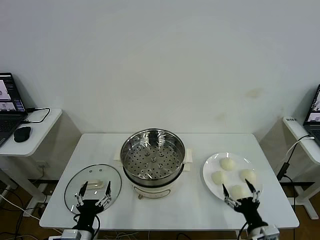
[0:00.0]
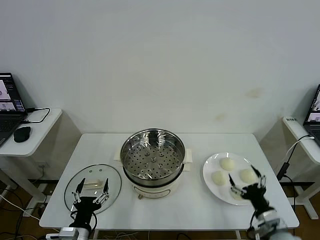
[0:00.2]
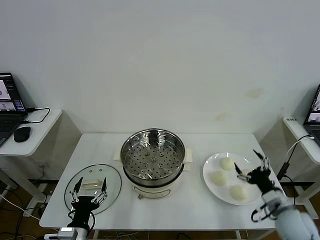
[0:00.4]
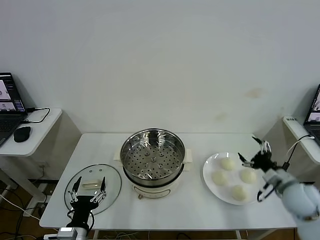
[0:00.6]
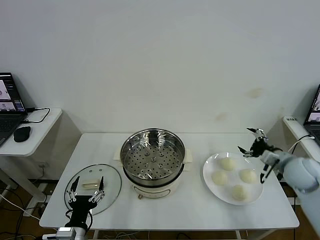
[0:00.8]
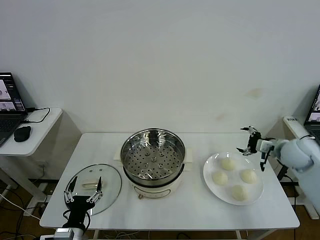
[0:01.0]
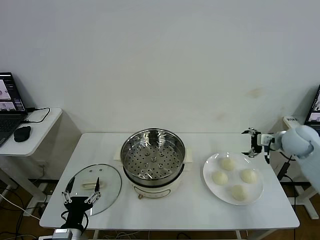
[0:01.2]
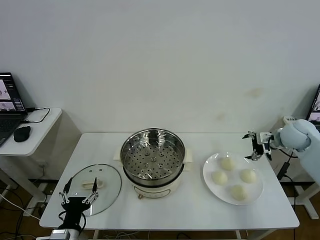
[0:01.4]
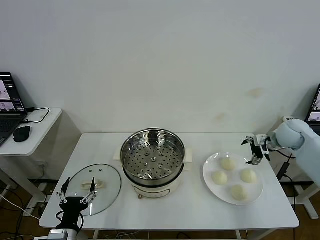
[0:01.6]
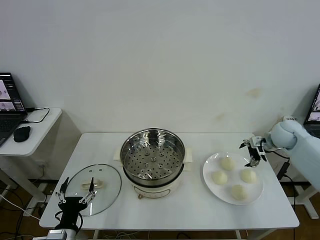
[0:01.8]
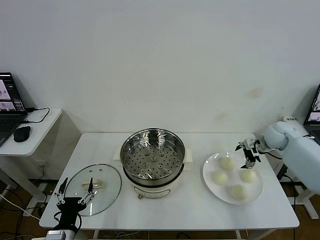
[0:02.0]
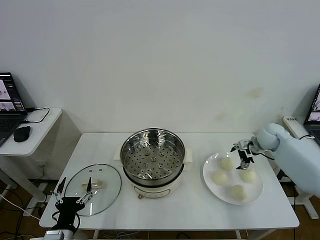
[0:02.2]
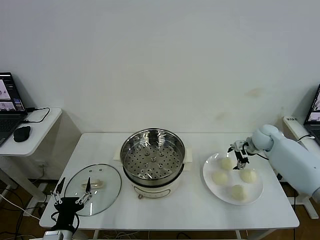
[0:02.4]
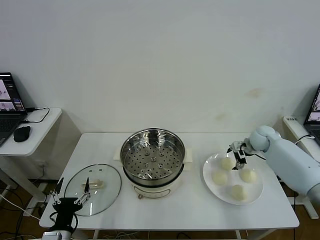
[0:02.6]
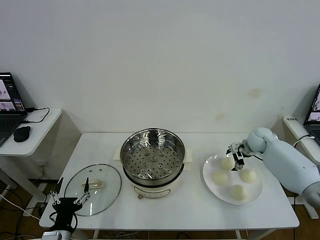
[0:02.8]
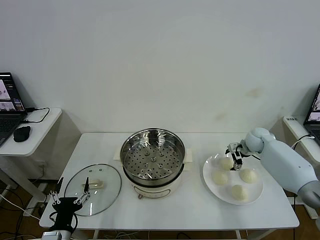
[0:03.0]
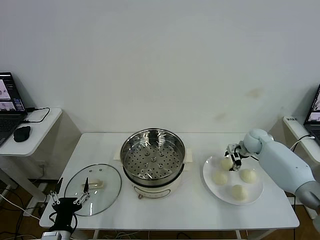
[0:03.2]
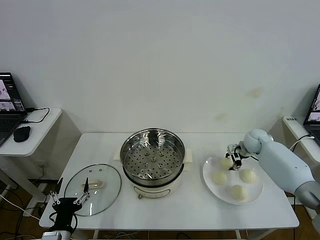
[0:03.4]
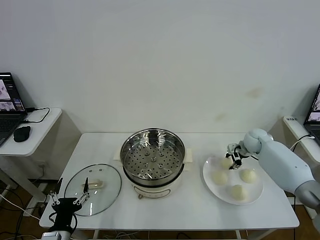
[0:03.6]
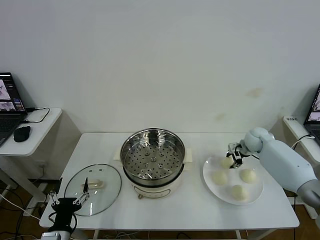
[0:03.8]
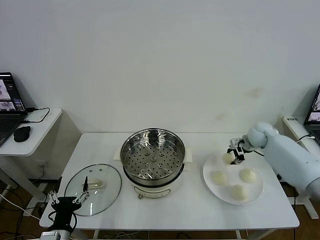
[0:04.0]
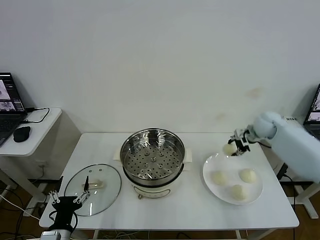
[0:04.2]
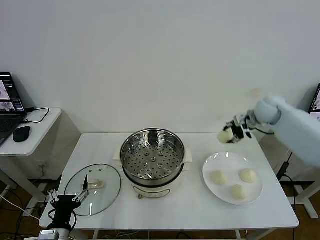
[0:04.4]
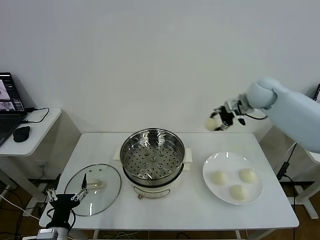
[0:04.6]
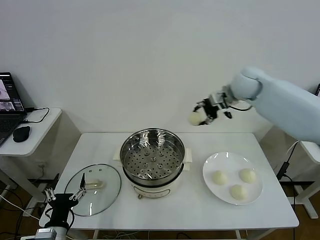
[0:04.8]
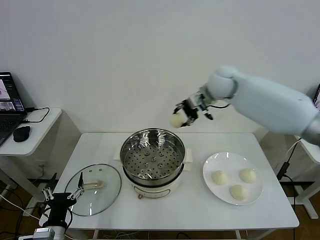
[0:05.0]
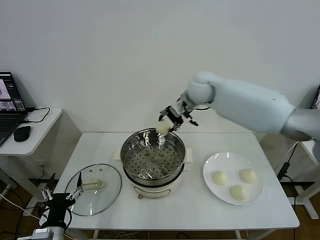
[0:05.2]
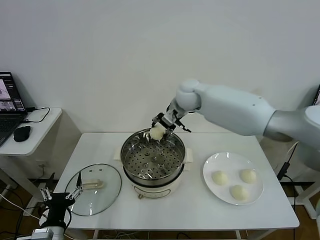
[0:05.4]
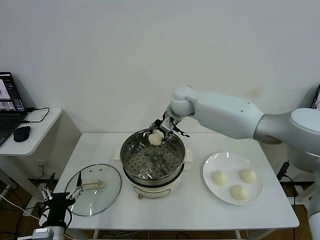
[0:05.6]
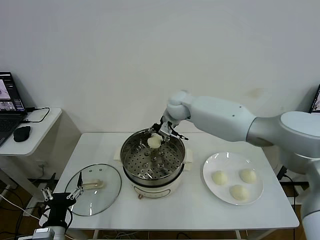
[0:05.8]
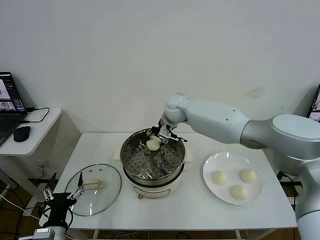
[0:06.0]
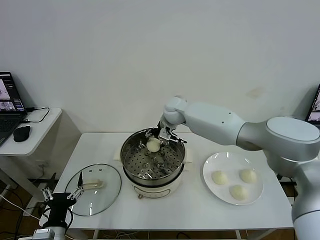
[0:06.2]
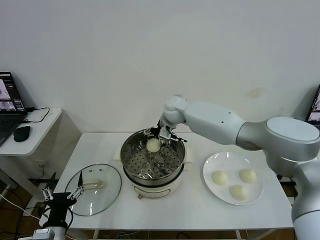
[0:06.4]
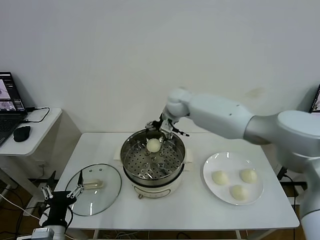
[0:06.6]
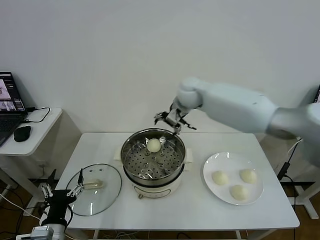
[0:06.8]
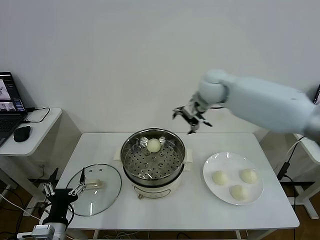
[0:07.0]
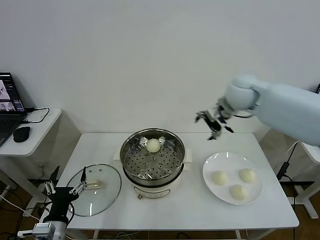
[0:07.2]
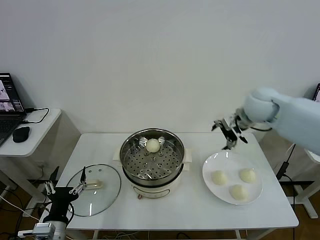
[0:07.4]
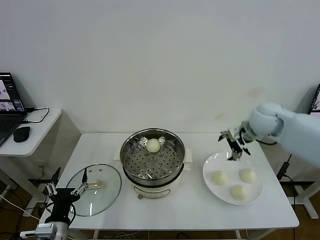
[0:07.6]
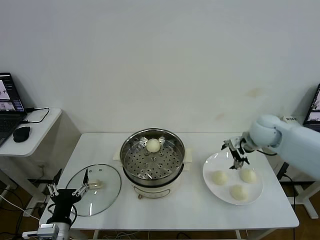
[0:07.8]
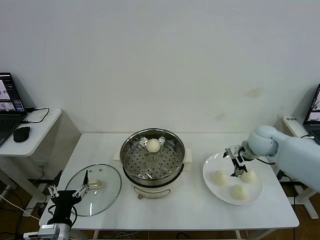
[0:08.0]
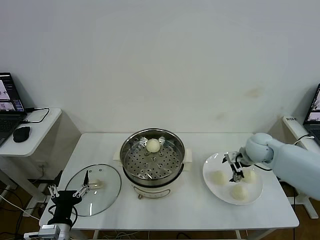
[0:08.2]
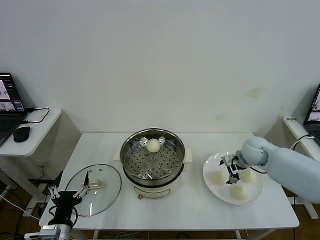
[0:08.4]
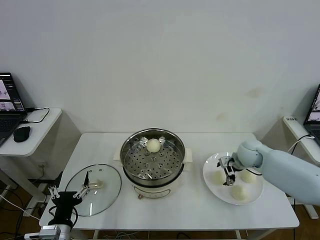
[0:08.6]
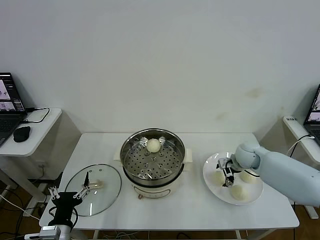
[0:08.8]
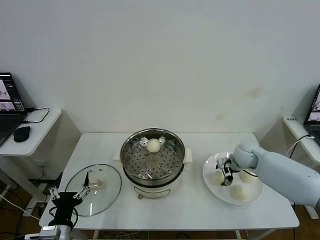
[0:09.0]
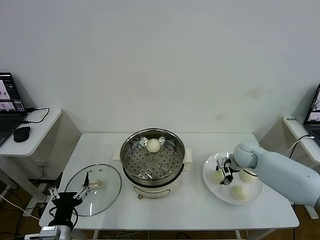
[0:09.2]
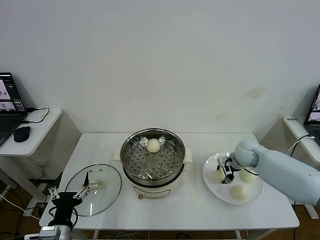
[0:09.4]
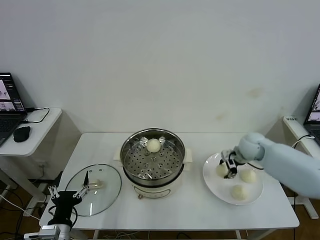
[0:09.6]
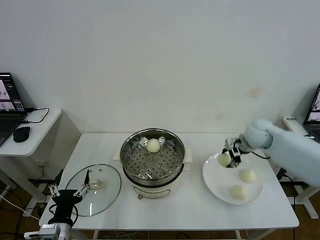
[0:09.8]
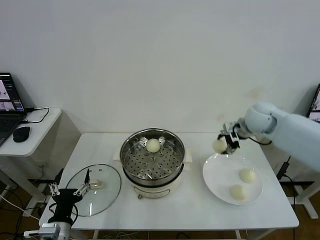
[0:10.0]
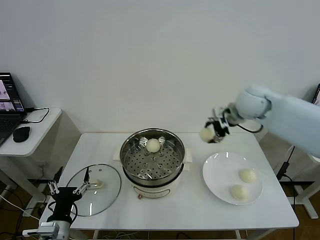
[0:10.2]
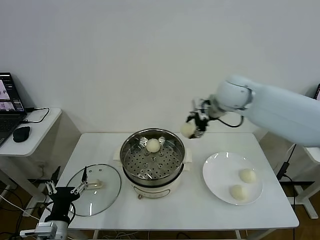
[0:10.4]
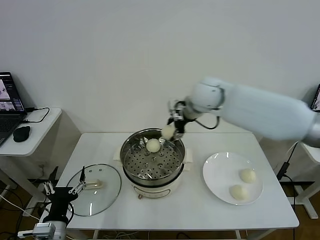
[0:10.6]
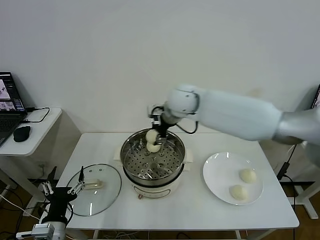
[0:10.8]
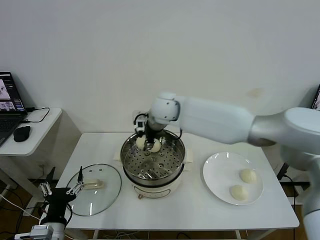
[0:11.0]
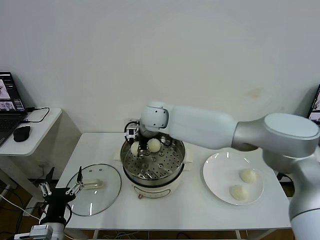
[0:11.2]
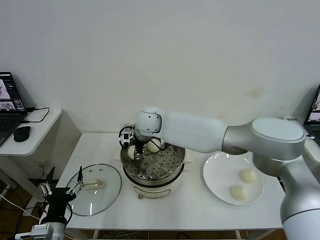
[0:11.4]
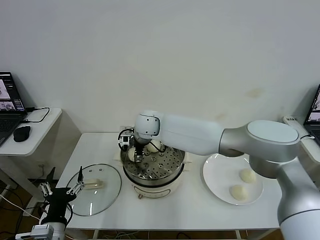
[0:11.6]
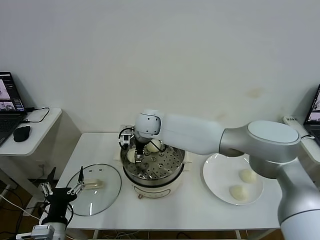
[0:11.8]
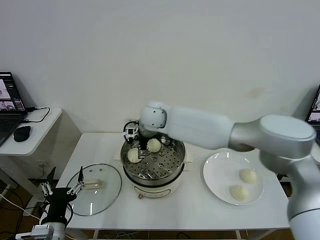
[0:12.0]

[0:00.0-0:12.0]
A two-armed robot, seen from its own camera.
Step, 0:00.0 to 0:03.4: Grasp the baozi in the plate with right gripper.
Step, 0:03.6 to 0:06.4: Place the baozi on the steamer with right gripper.
Step, 0:06.6 to 0:09.4: Grasp the baozi in the plate with right gripper.
Step, 0:09.6 to 0:12.0: Place the baozi on the steamer with right gripper.
0:01.6 to 0:03.0: The right gripper heads downward, to the left and forward, covering some 10 cm.
0:03.0 to 0:04.4: The right gripper shifts some 20 cm upward, and closes up.
0:04.4 to 0:06.0: The right gripper goes some 30 cm to the left.
0:06.0 to 0:07.6: The right gripper is displaced to the right by roughly 30 cm, and opens up.
0:07.6 to 0:09.0: The right gripper is displaced downward by some 15 cm, and closes its fingers.
0:09.0 to 0:10.4: The right gripper goes some 30 cm upward and to the left.
0:10.4 to 0:12.0: The right gripper is displaced to the left and downward by some 15 cm, and opens.

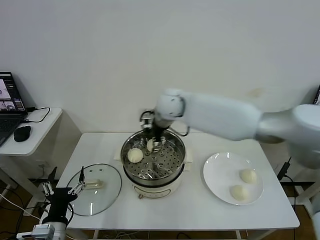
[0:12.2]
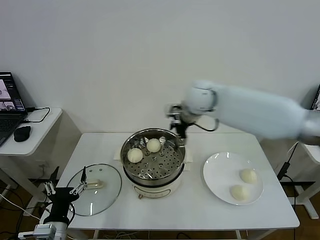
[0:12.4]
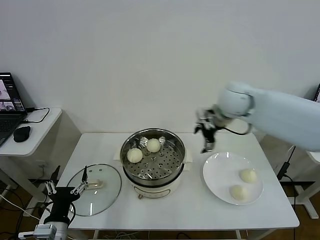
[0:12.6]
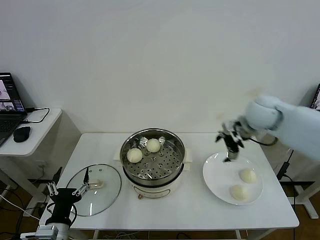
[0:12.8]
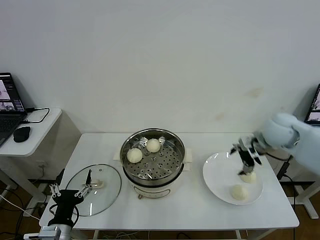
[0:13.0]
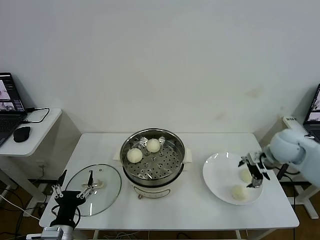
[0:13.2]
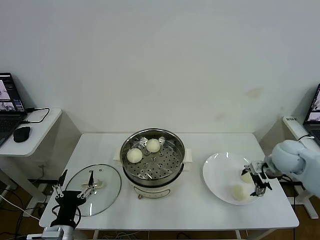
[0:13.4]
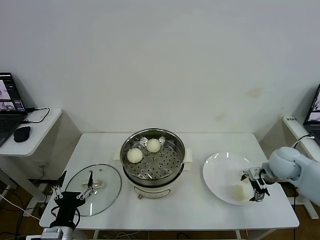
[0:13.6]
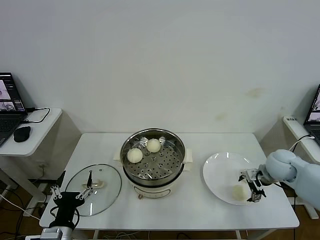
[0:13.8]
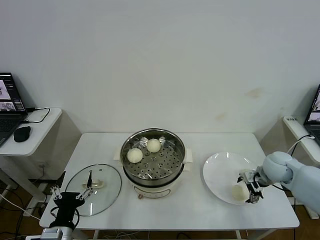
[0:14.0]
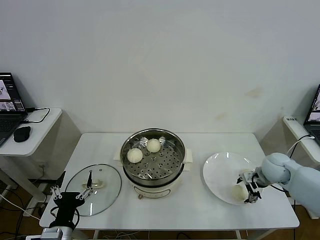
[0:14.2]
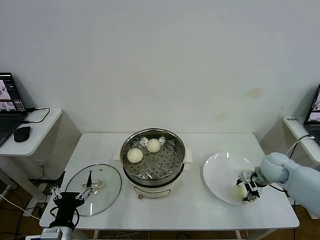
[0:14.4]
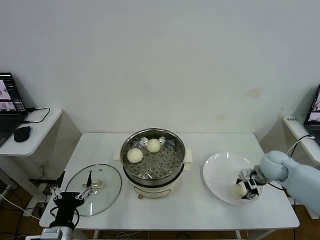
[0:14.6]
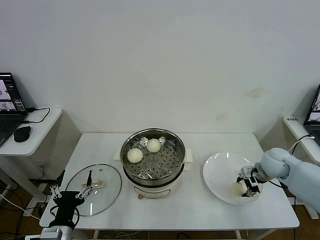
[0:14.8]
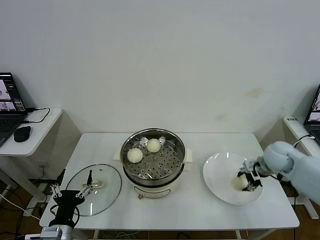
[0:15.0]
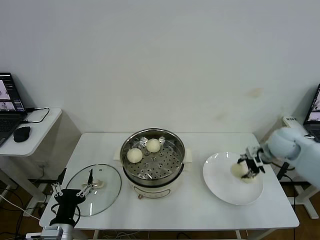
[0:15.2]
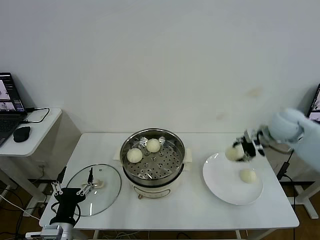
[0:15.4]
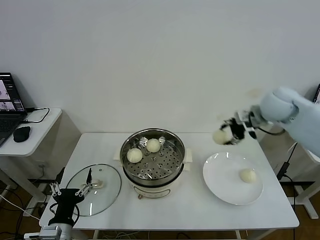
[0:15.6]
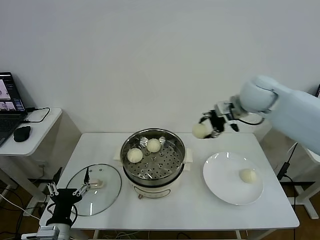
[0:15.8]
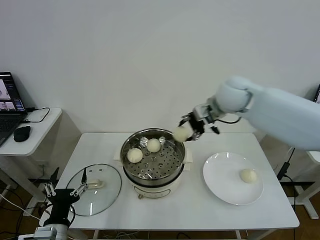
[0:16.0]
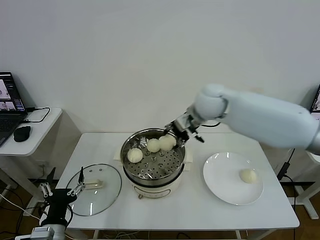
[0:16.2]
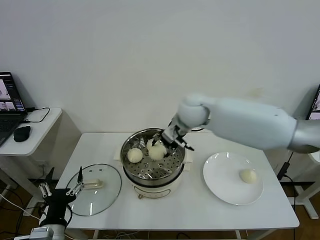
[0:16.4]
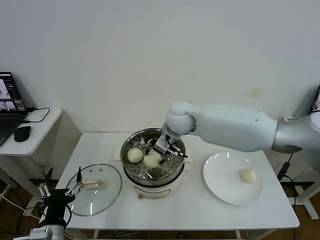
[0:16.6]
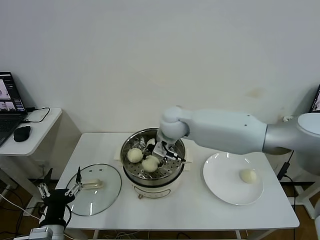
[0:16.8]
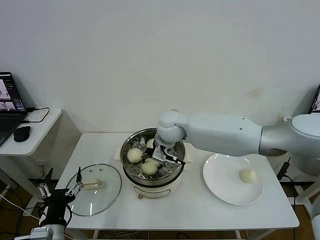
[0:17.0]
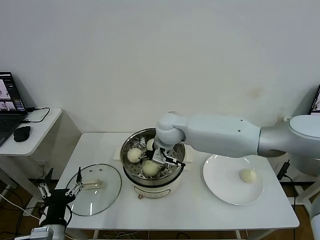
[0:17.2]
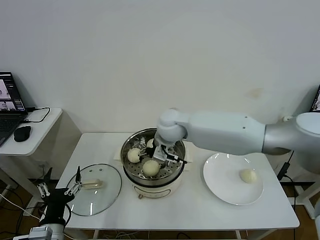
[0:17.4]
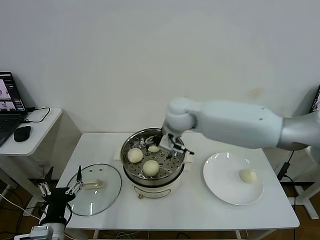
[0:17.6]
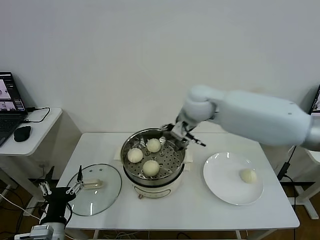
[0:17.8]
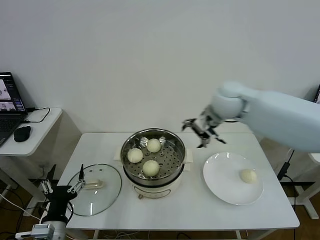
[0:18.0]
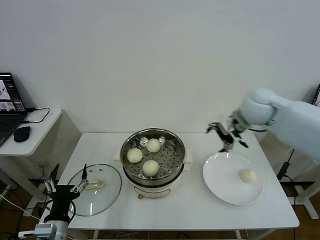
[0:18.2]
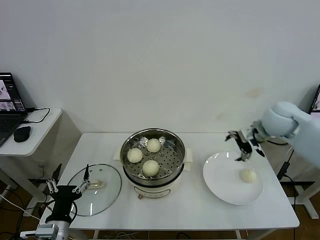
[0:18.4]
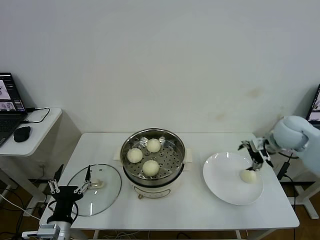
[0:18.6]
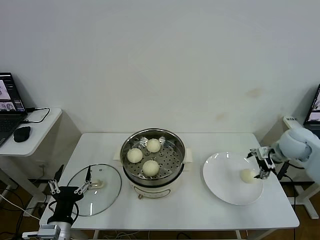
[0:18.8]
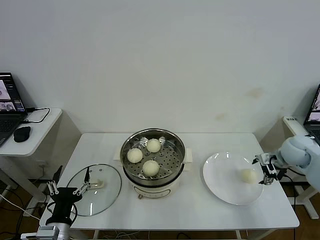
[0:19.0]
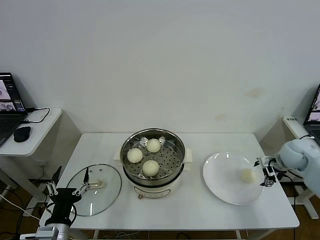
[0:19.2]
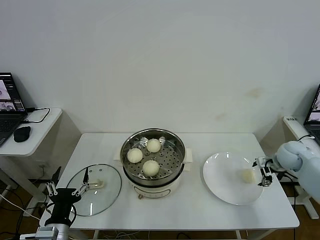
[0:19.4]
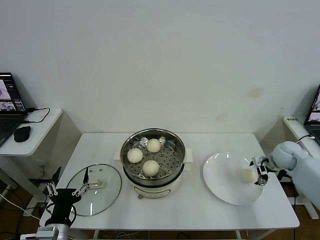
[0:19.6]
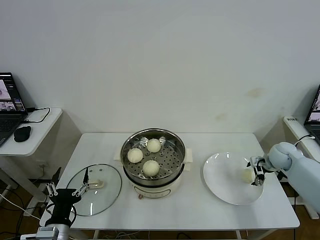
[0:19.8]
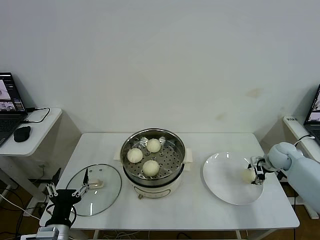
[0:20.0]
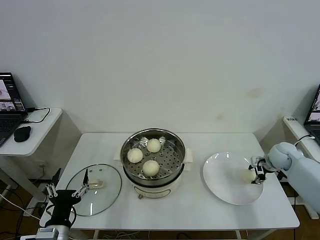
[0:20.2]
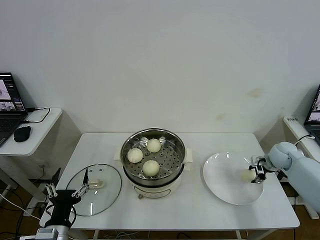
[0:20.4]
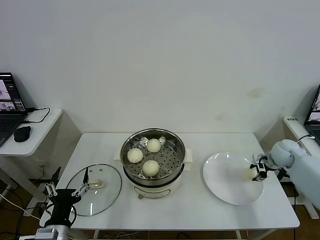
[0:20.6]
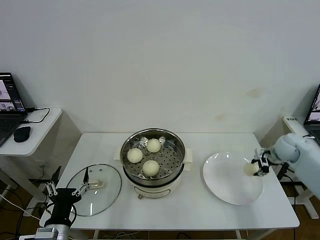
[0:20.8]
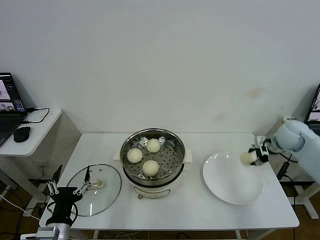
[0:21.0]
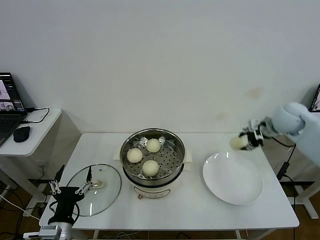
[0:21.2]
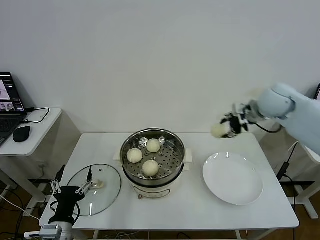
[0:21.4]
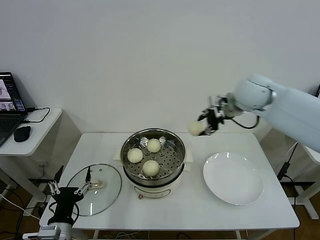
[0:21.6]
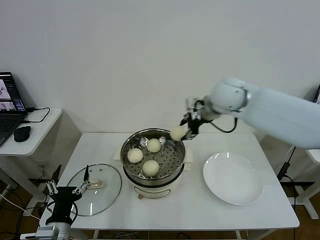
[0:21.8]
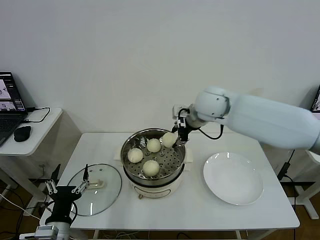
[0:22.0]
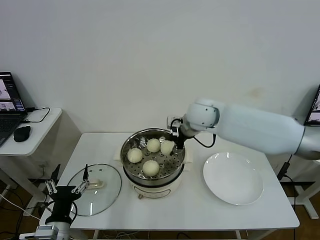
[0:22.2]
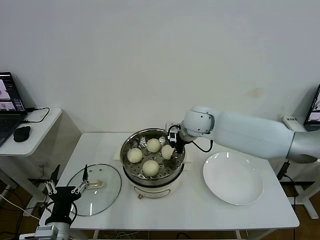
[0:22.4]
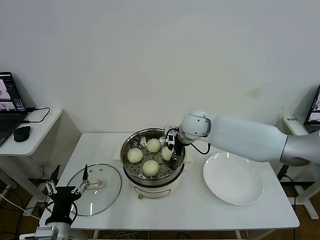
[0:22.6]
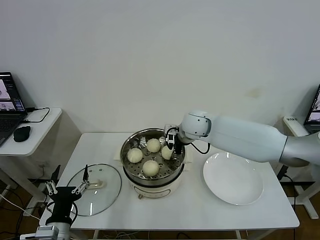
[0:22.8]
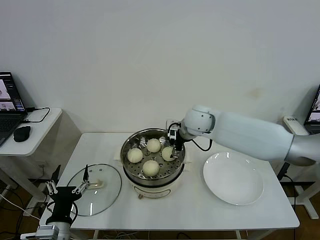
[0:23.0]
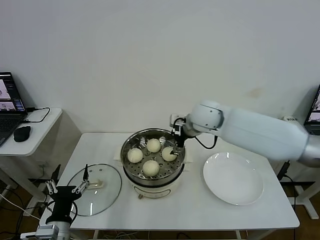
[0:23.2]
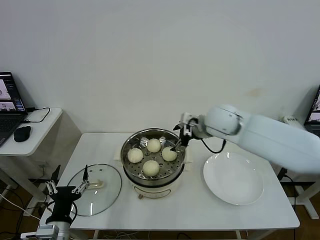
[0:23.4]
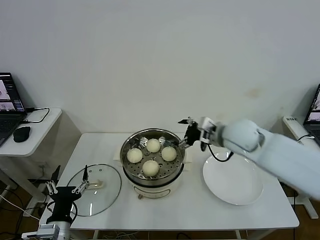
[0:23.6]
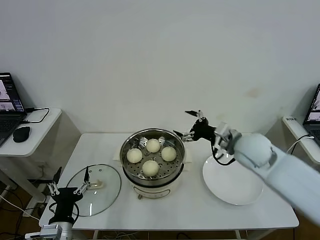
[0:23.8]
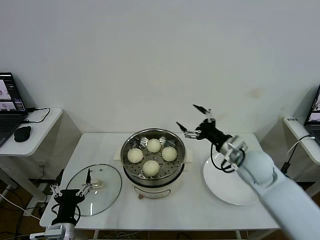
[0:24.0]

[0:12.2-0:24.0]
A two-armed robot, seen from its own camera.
Step, 0:12.2 to 0:14.4: Grasp the baozi in the plate with right gripper.
Step, 0:14.8 to 0:17.4: Place the baozi on the steamer with right gripper.
Step, 0:17.6 to 0:20.2: Grasp the baozi in the plate with right gripper.
Step, 0:20.4 to 0:23.0: Place the baozi on the steamer with right gripper.
0:12.2 to 0:13.6: The right gripper is displaced to the right and downward by approximately 35 cm.
0:13.6 to 0:15.2: The right gripper shifts roughly 10 cm upward and forward, and closes.
0:15.2 to 0:16.6: The right gripper shifts roughly 35 cm to the left.
0:16.6 to 0:18.2: The right gripper is displaced to the right by some 25 cm, and opens its fingers.
0:18.2 to 0:19.6: The right gripper shifts about 25 cm downward and to the right.
0:19.6 to 0:21.0: The right gripper goes roughly 10 cm upward, and closes its fingers.
0:21.0 to 0:22.6: The right gripper moves to the left, about 30 cm.
0:22.6 to 0:24.0: The right gripper moves to the right and backward, roughly 20 cm, and opens its fingers.
